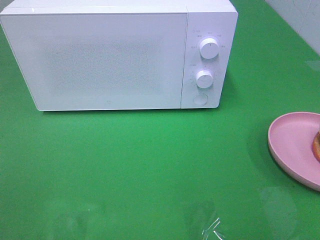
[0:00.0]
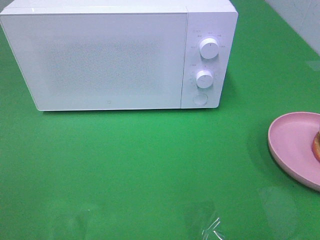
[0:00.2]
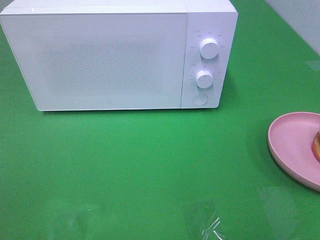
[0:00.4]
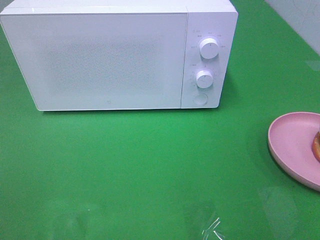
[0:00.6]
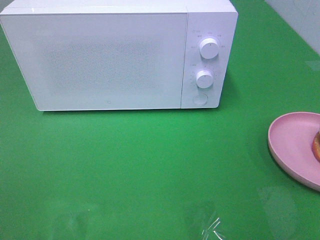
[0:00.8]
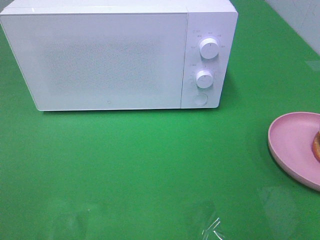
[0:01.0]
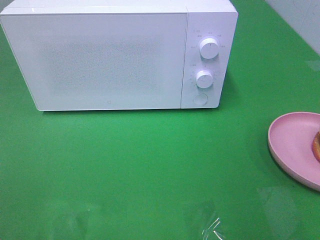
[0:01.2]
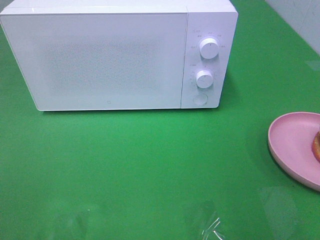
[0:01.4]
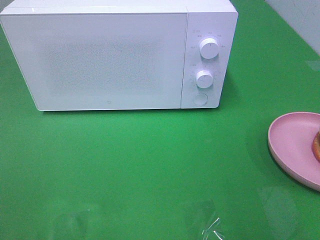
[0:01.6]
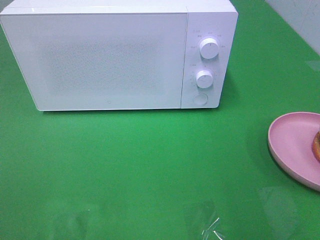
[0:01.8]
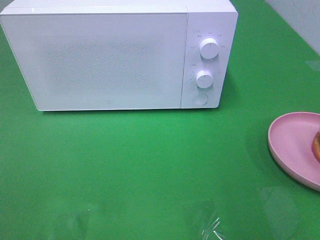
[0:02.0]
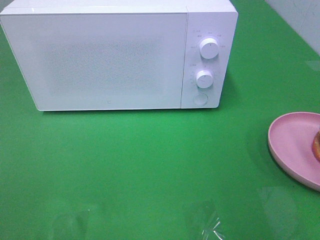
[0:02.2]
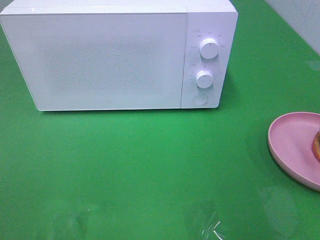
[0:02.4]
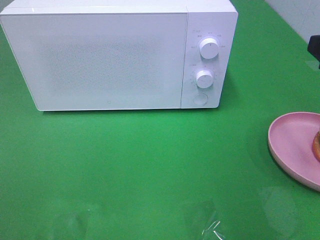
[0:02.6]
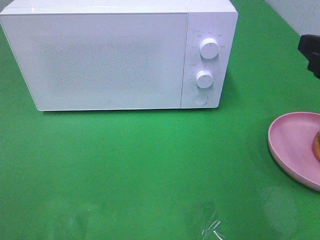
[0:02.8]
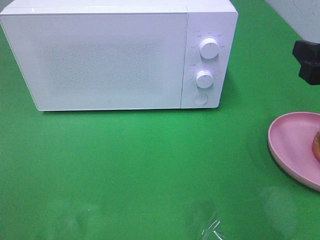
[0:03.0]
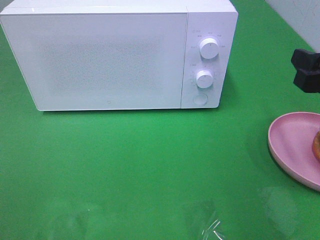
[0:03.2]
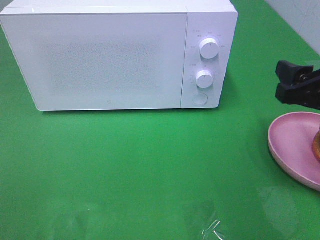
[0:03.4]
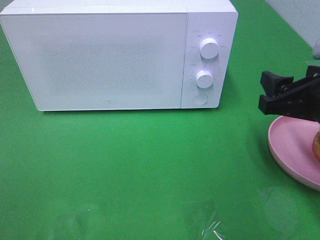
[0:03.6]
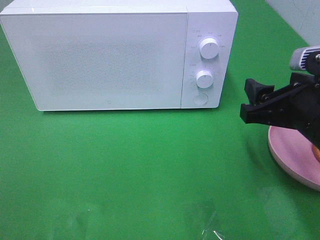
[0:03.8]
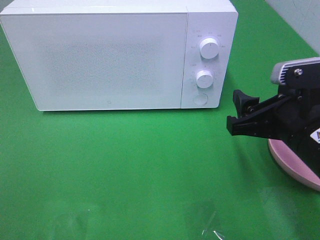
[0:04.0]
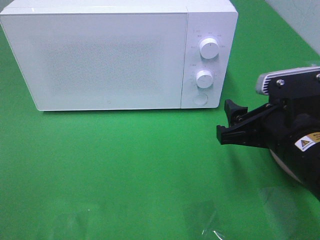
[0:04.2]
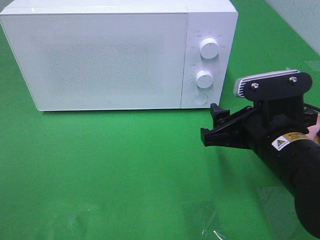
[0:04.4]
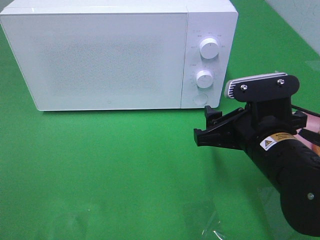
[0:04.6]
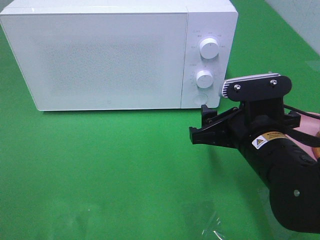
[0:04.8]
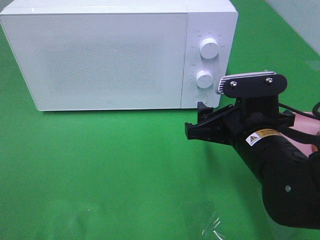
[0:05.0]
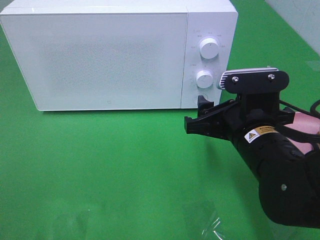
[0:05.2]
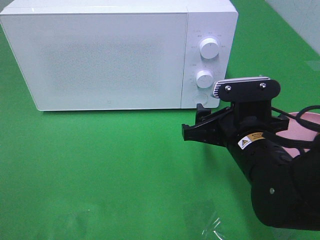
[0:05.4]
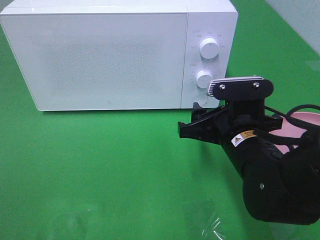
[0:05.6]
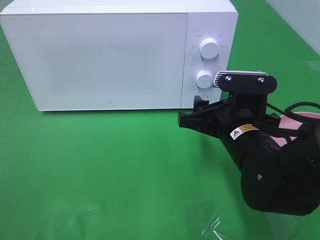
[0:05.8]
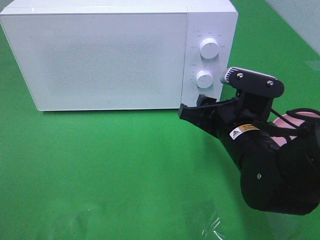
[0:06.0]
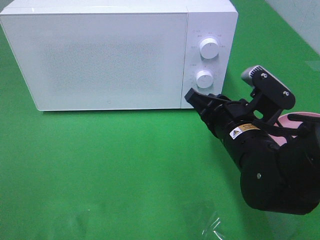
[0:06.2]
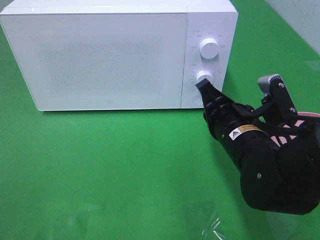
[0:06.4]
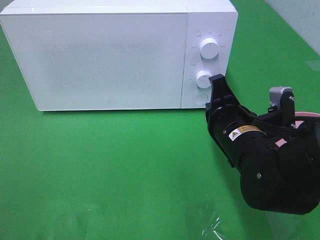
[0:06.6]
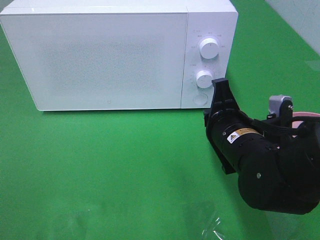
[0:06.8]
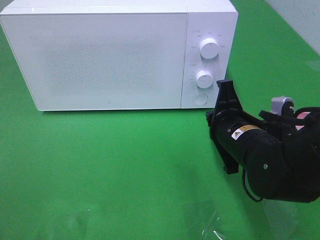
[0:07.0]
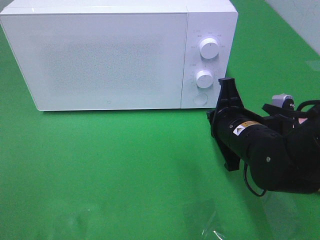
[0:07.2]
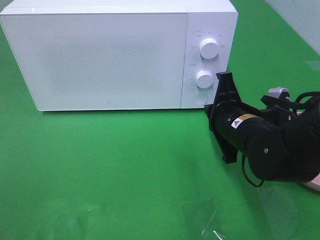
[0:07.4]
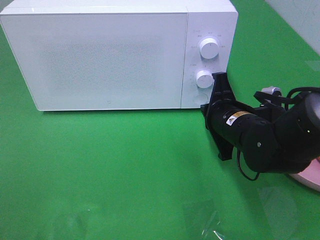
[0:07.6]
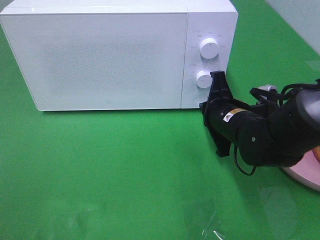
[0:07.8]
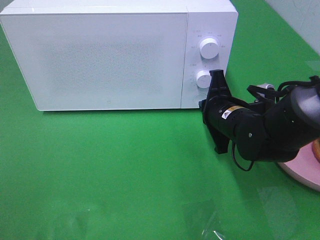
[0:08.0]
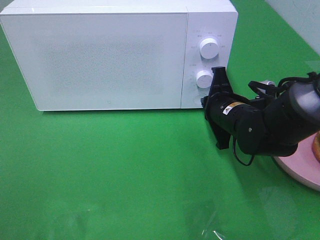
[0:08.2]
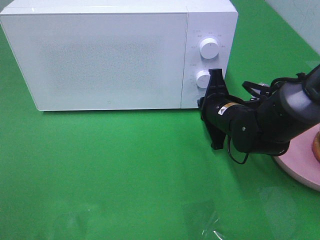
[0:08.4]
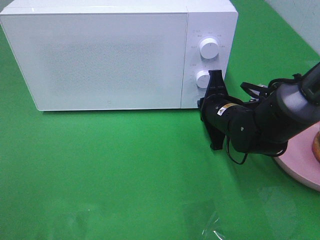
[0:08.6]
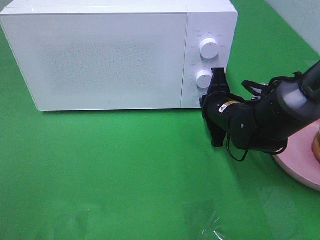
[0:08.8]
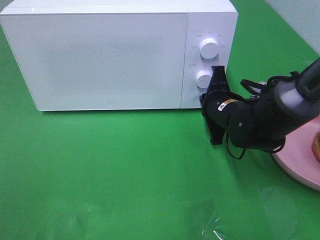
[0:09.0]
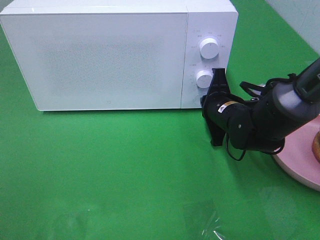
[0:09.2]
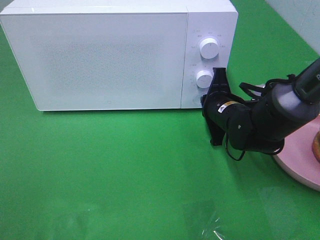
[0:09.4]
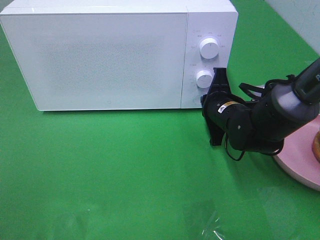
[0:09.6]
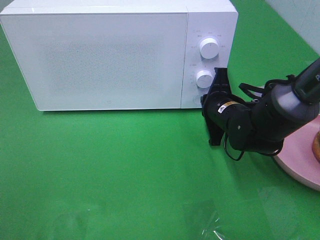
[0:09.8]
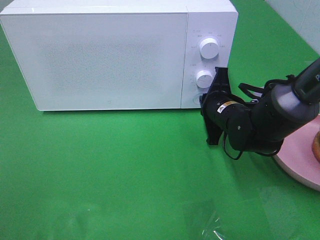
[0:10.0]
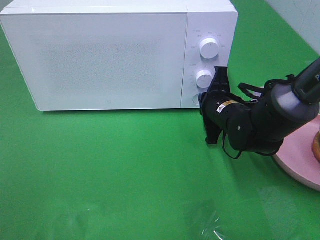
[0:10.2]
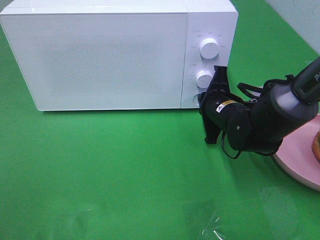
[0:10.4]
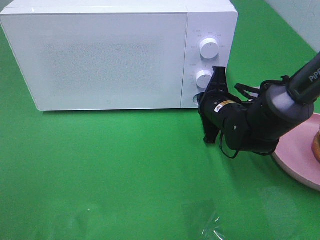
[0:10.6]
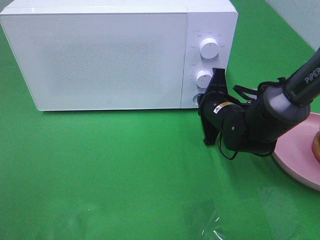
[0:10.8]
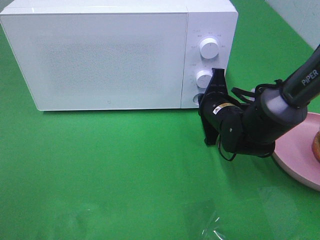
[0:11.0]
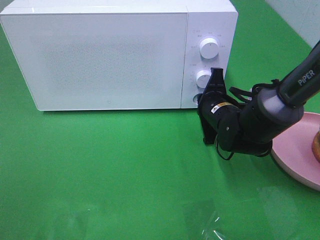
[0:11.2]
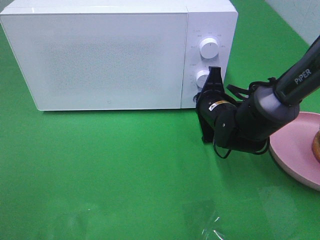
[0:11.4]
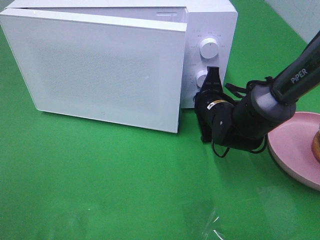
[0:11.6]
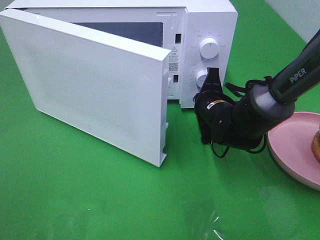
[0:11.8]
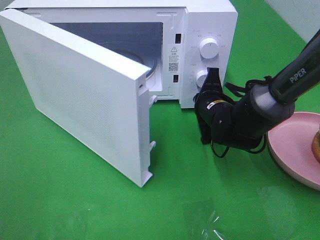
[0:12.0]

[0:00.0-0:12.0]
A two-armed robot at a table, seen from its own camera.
Task of the whole recording: Heat the burger.
0:01.6 to 0:03.0: The right gripper shifts about 15 cm forward and downward.
0:03.0 to 0:04.4: The right gripper shifts some 15 cm to the left and downward.
0:04.4 to 0:06.0: The right gripper shifts by roughly 5 cm.
0:06.0 to 0:07.6: The right gripper moves about 5 cm, and closes its fingers.
0:07.6 to 0:09.0: The right gripper shifts roughly 5 cm forward.
0:09.0 to 0:10.4: The grippers stay close to where they were, moving slightly.

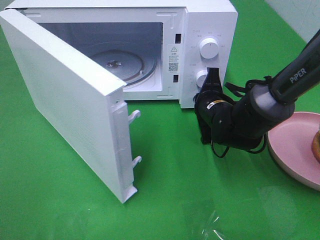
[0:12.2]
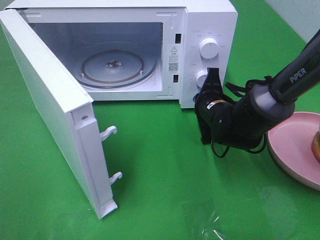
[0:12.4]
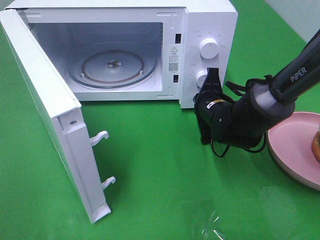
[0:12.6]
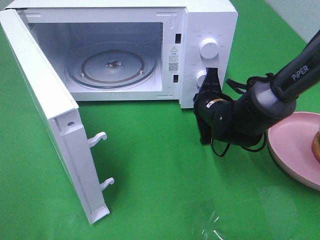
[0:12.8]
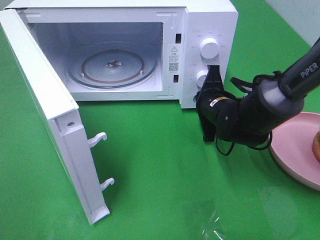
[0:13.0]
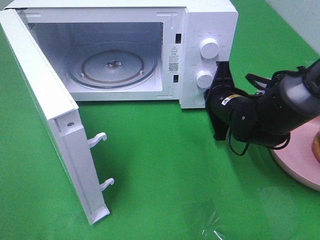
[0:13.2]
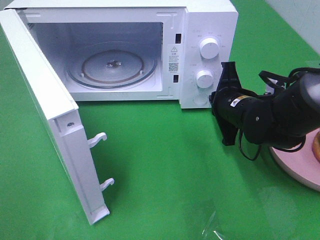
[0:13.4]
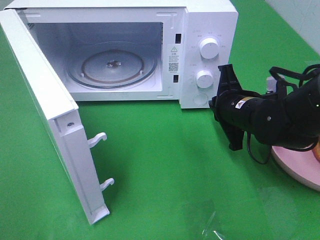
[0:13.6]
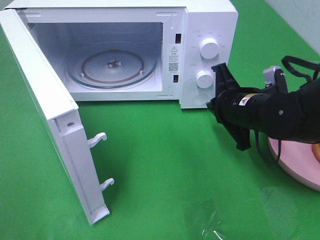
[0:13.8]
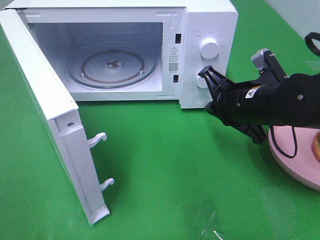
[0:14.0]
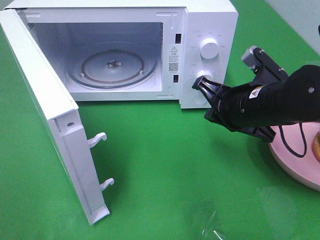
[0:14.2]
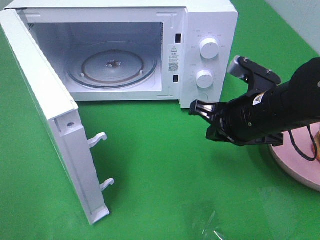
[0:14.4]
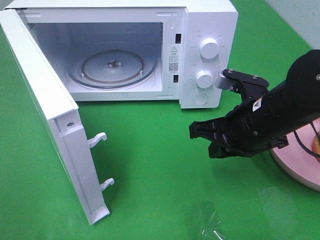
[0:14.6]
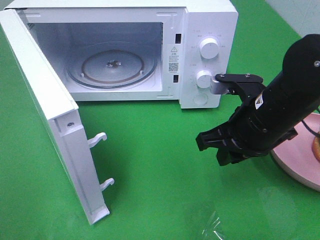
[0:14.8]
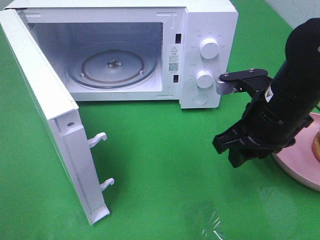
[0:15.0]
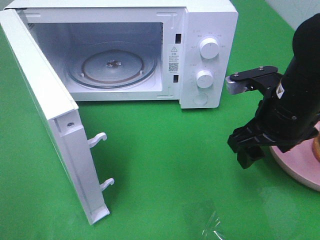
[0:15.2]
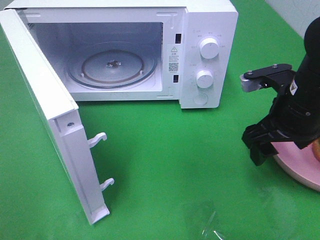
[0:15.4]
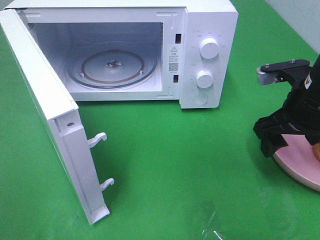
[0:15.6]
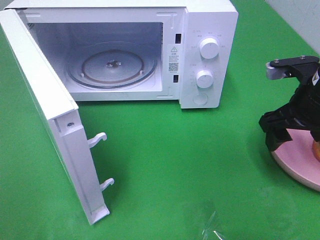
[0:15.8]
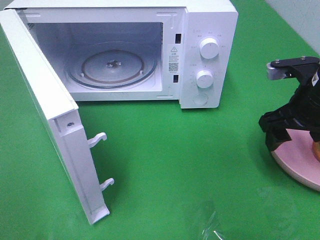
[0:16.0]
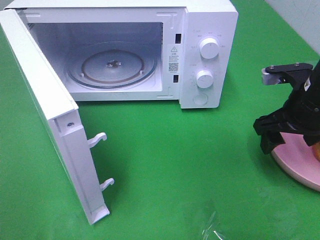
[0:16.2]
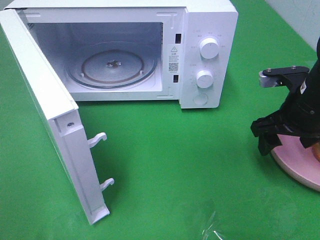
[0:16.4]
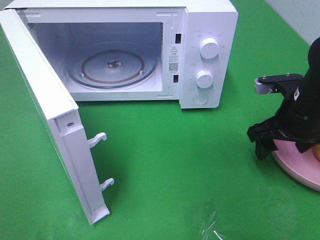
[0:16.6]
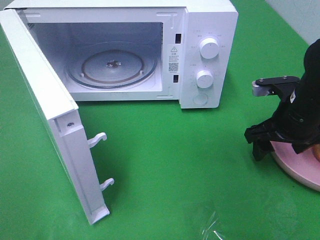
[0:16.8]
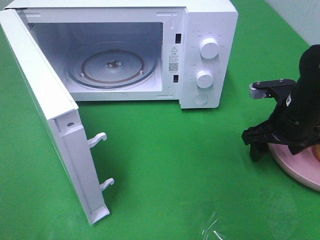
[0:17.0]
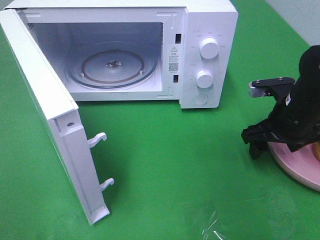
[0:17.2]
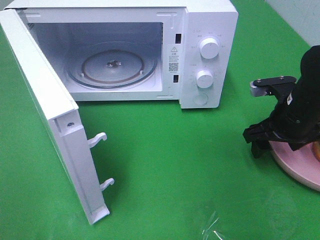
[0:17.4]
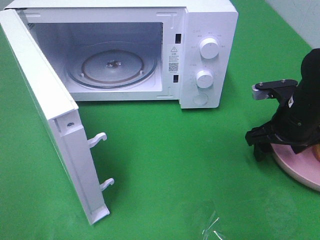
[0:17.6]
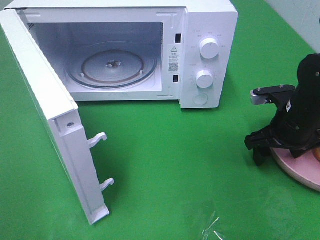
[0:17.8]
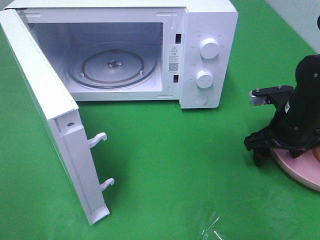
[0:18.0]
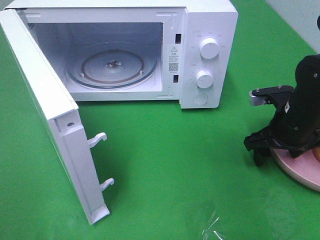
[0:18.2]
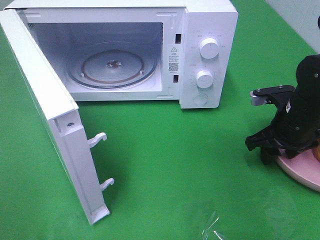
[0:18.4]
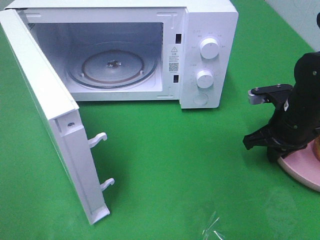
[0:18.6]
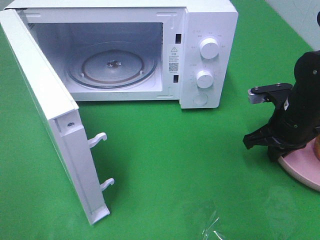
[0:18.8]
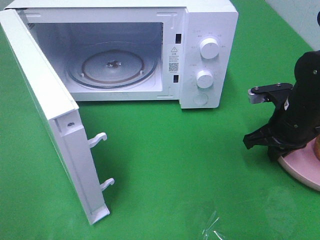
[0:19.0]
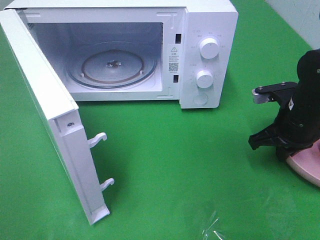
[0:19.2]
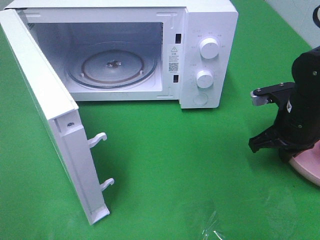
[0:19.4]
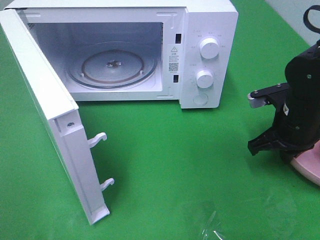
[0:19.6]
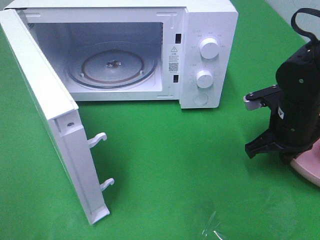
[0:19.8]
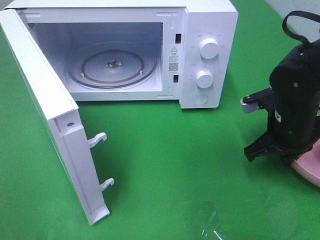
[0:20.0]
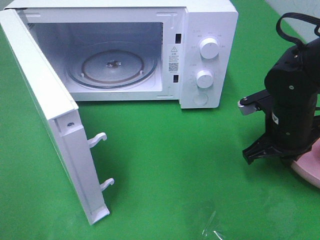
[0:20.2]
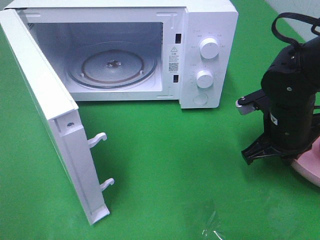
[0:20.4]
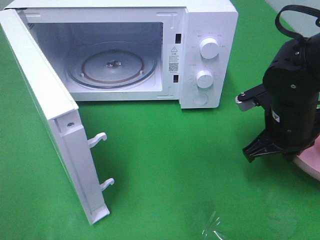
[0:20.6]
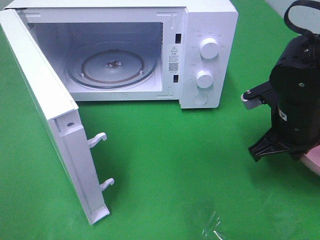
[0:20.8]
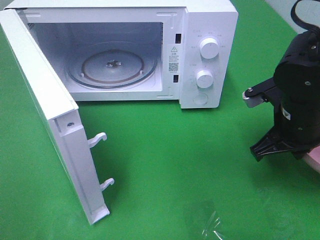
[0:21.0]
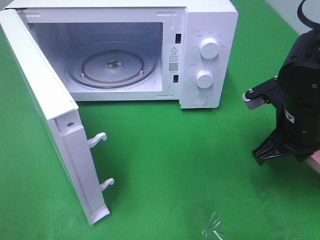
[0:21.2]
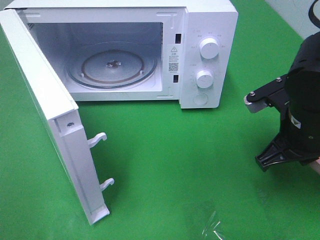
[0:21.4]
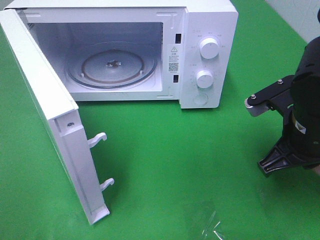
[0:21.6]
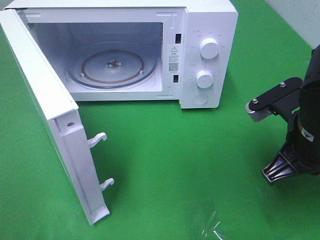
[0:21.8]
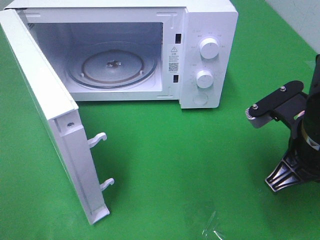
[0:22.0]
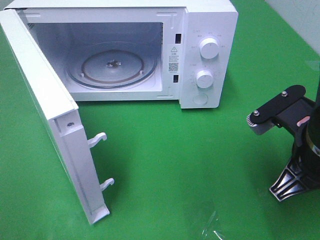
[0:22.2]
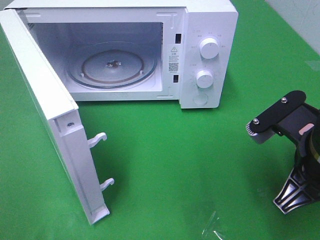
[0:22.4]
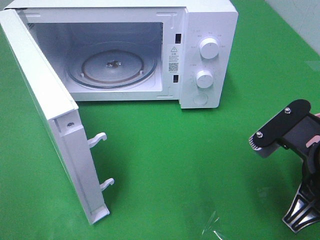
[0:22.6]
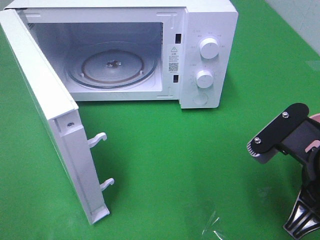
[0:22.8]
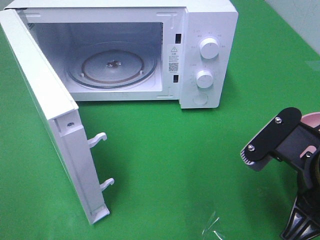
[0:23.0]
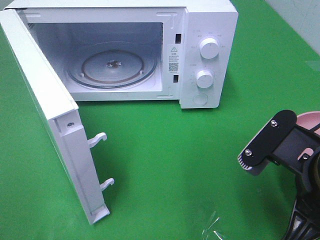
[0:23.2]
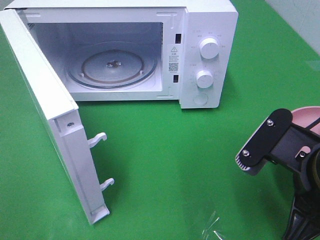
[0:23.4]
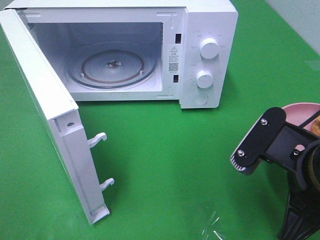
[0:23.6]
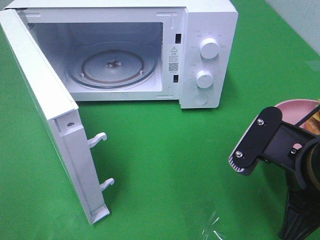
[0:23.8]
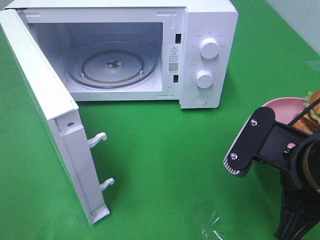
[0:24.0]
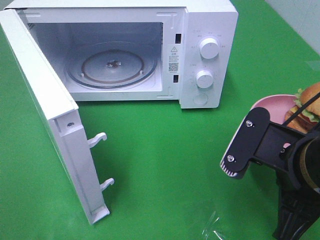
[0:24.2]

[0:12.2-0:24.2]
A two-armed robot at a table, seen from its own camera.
Task of the whole recording: Heat the burger.
Step, 0:14.0 to 0:19.4: Right hand: grab the plate with the hamburger.
0:12.2 to 0:13.8: The right gripper is displaced backward and upward by some 10 cm.
0:13.8 to 0:15.2: The right gripper shifts by some 5 cm, and opens its fingers.
0:15.2 to 0:16.6: The right gripper travels to the right by about 5 cm.
0:16.6 to 0:18.2: There are only small adjustments of the grippers.
0:18.2 to 0:19.8: The right gripper closes up.
0:19.8 to 0:21.2: The right gripper shifts by roughly 5 cm.
0:21.2 to 0:22.6: The right gripper moves backward, about 10 cm.
